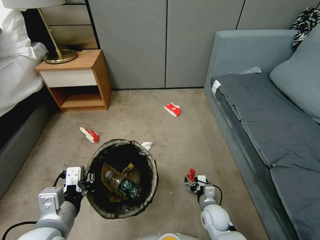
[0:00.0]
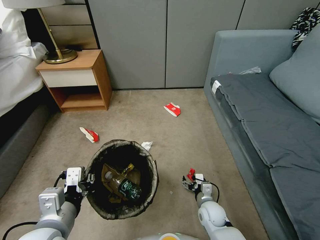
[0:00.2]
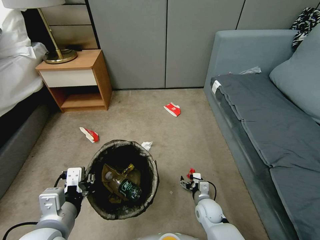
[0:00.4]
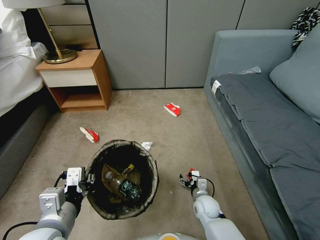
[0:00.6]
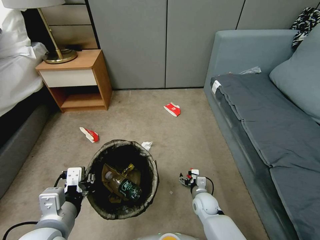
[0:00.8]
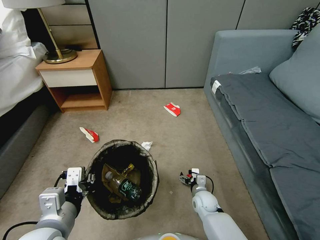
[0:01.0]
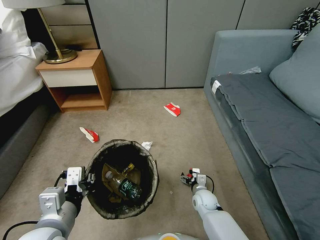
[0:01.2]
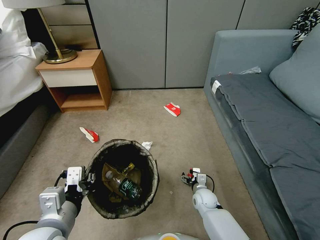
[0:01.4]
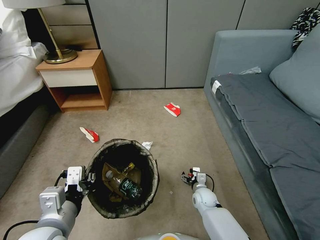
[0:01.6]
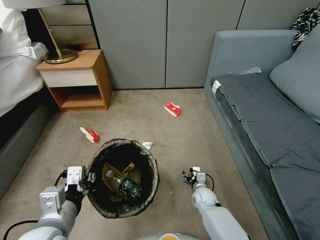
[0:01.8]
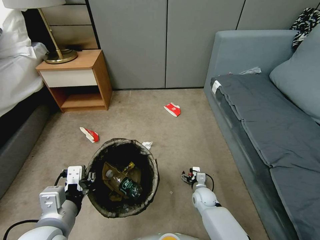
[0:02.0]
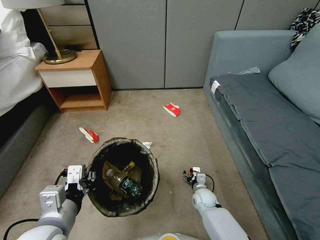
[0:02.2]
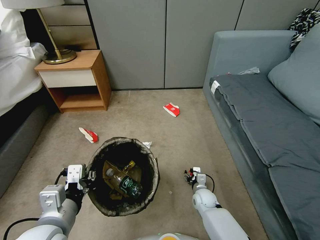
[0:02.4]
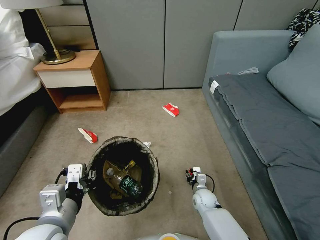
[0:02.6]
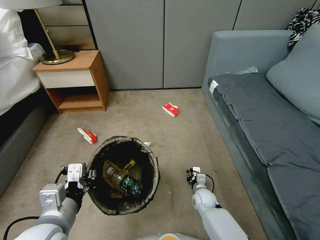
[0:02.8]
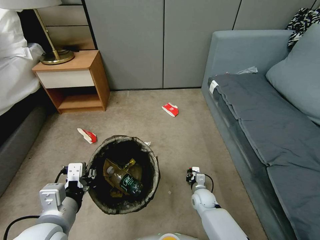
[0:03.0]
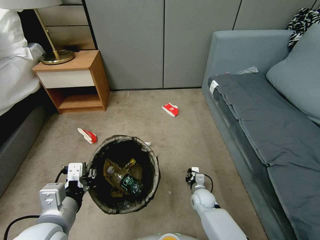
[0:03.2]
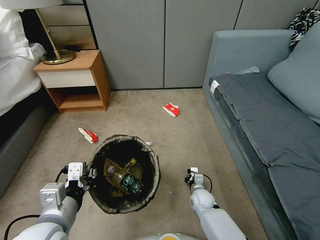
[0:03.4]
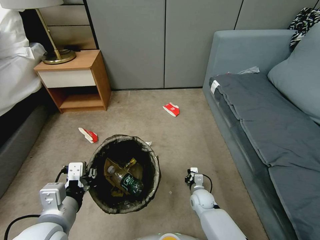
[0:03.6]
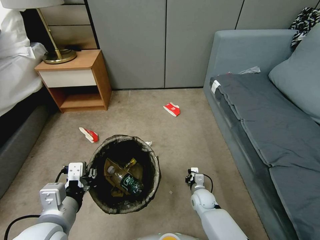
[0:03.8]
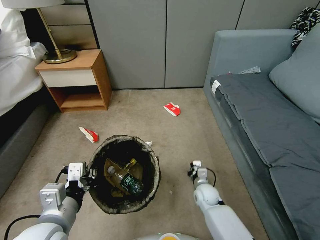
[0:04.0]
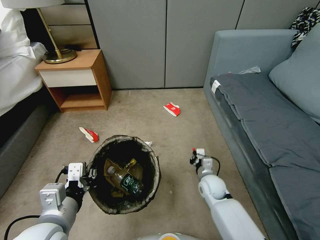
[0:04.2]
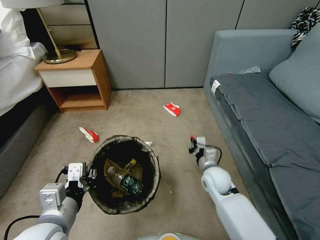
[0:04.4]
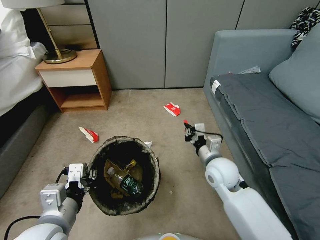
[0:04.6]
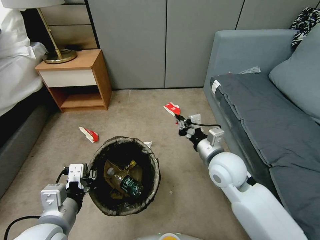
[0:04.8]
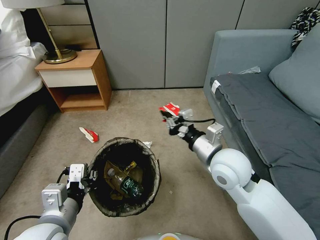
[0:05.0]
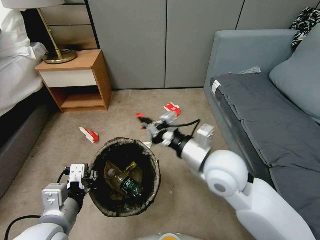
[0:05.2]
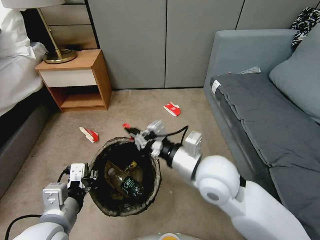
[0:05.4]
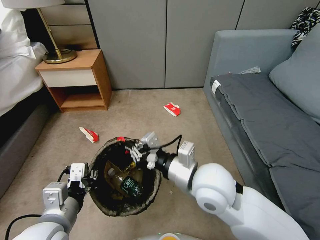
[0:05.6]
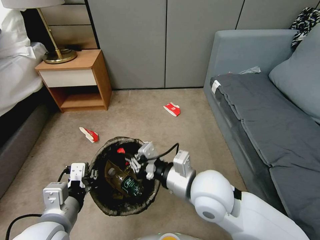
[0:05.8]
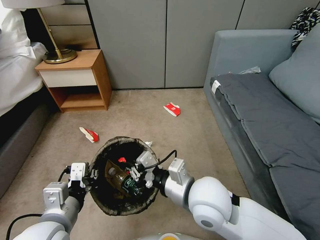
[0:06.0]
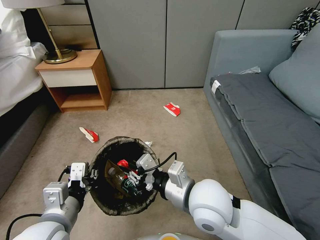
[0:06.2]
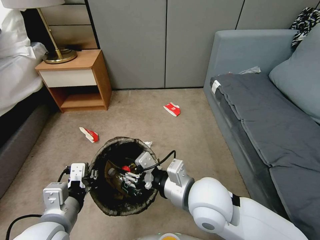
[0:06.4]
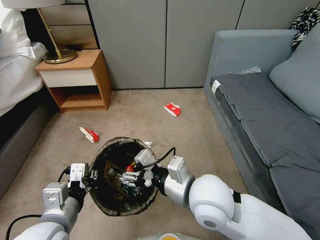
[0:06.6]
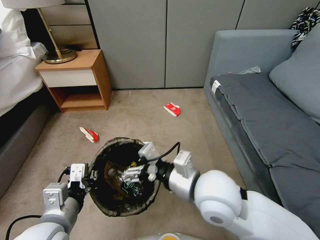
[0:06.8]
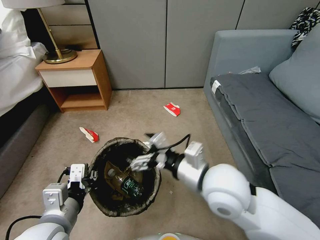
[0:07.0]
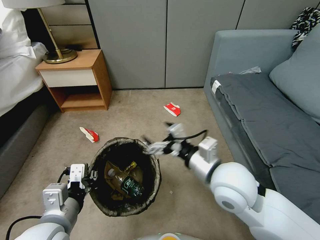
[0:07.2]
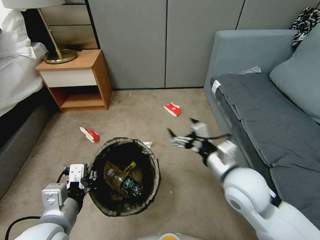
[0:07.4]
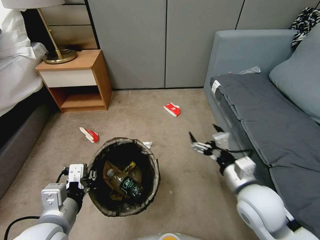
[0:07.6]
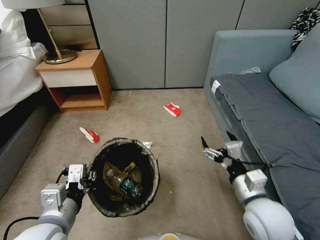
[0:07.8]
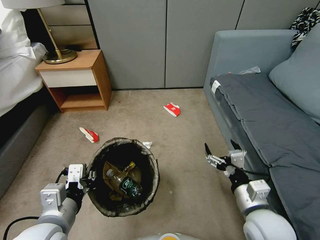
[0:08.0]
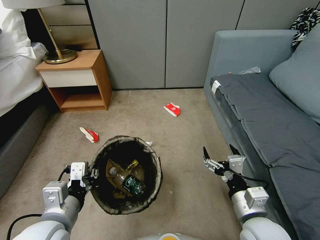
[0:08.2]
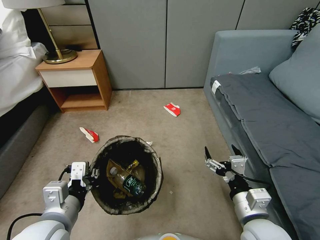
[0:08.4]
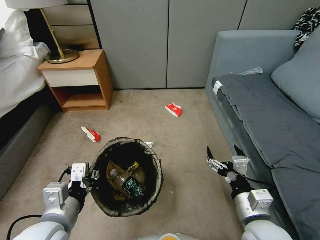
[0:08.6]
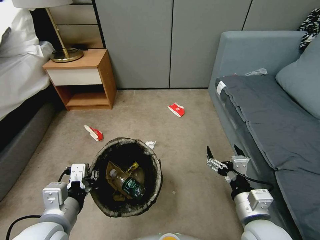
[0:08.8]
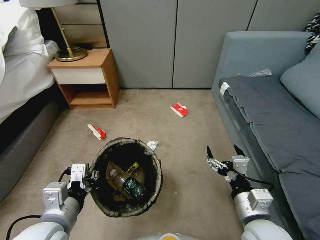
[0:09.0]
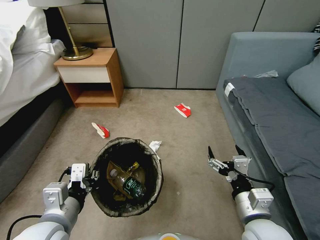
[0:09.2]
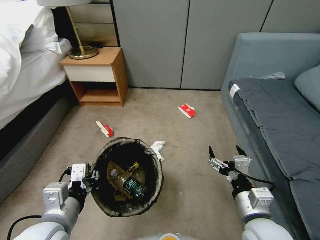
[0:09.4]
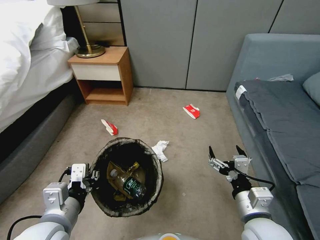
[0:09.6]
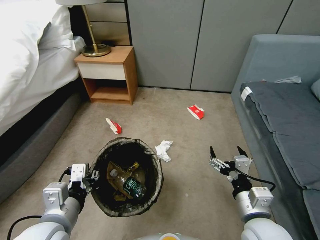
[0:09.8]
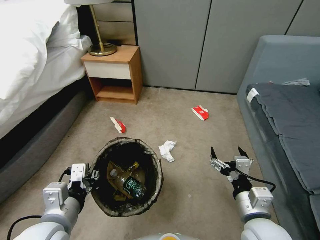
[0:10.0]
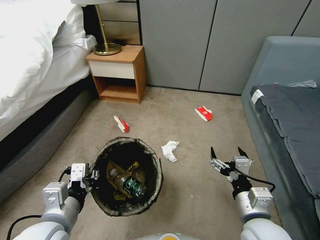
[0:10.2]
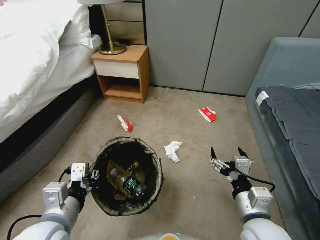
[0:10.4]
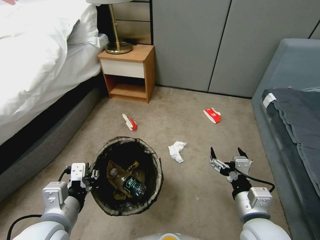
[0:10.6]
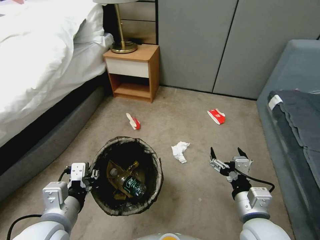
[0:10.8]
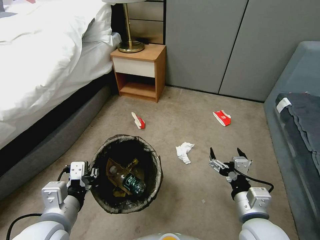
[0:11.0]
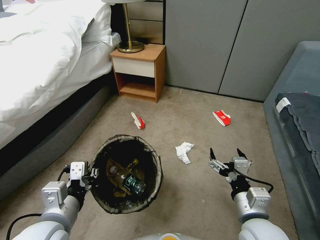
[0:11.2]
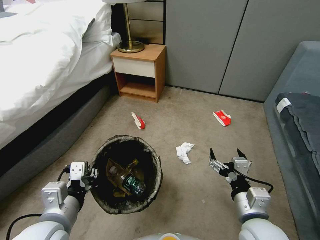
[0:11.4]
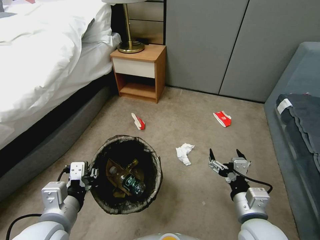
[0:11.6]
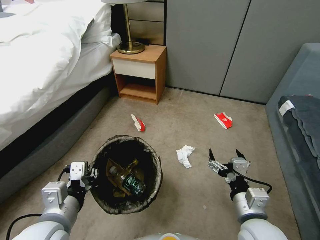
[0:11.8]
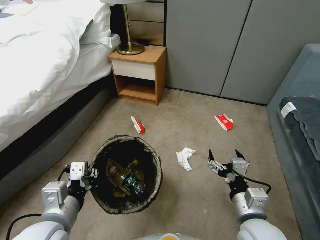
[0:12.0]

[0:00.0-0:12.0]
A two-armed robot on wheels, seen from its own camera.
Task of the whole recording: Pick up the trash bin, then pick up the garbage from the floor and place it into the trash bin.
0:00.0 to 0:01.6: The right gripper travels forward by about 5 cm.
0:01.6 to 0:03.0: The right gripper closes up.
0:03.0 to 0:04.4: The right gripper is displaced upward by about 20 cm, and closes up.
0:04.4 to 0:06.0: The right gripper heads upward, backward and to the left, covering some 20 cm.
0:06.0 to 0:07.6: The right gripper shifts roughly 15 cm to the right, and opens.
0:07.6 to 0:09.0: The right gripper heads backward, covering some 5 cm.

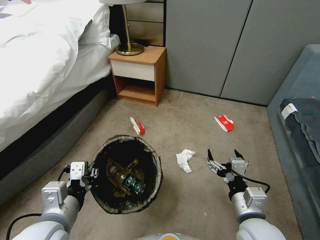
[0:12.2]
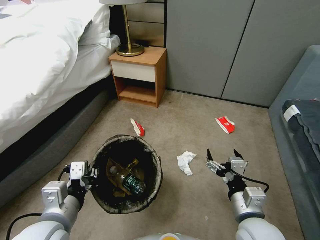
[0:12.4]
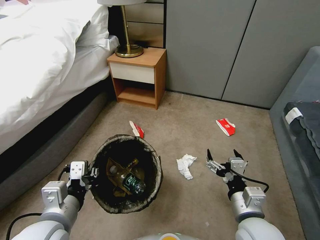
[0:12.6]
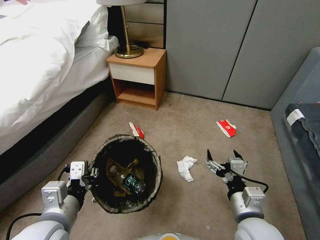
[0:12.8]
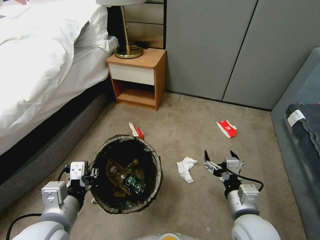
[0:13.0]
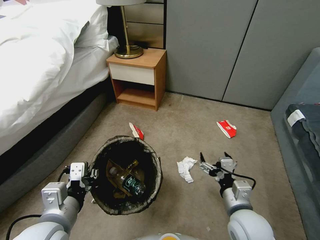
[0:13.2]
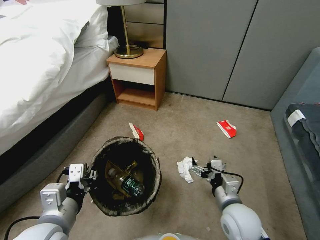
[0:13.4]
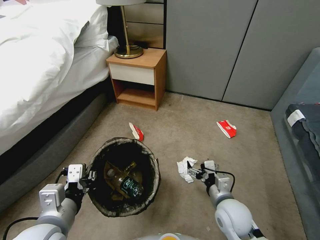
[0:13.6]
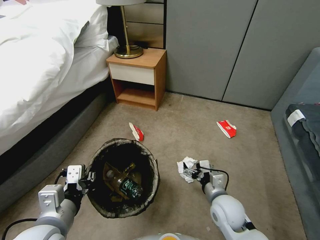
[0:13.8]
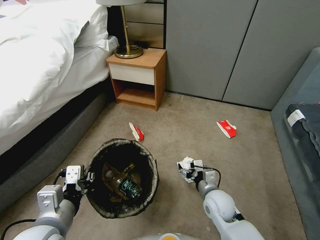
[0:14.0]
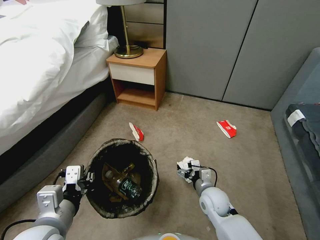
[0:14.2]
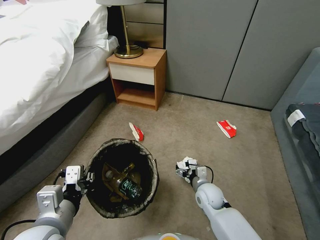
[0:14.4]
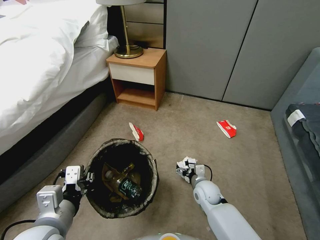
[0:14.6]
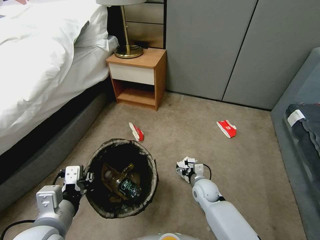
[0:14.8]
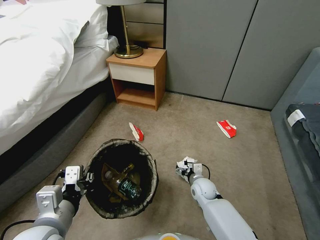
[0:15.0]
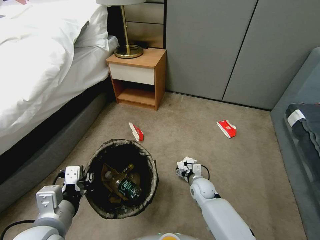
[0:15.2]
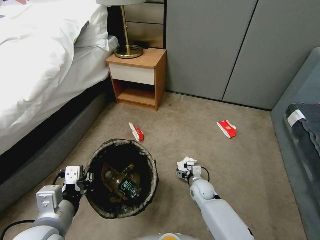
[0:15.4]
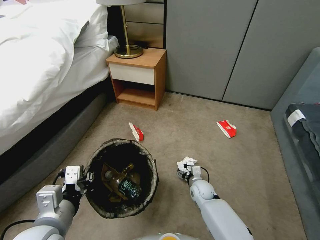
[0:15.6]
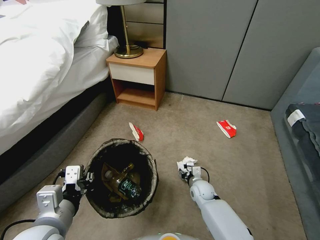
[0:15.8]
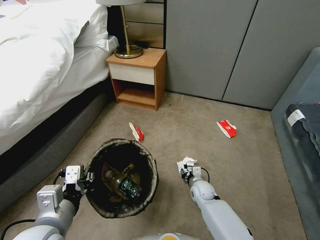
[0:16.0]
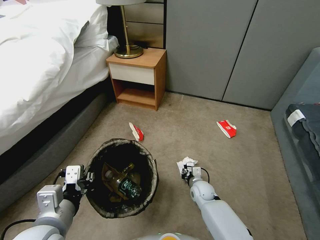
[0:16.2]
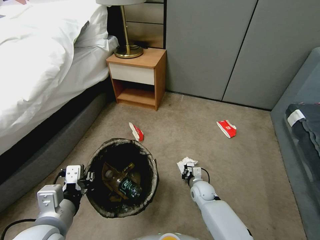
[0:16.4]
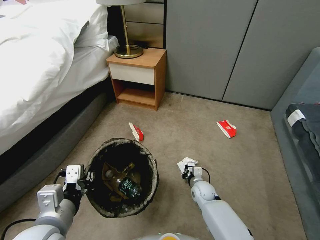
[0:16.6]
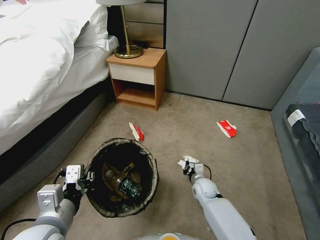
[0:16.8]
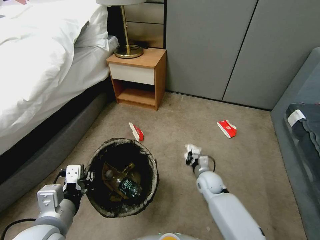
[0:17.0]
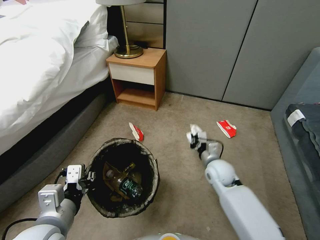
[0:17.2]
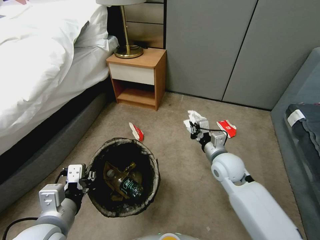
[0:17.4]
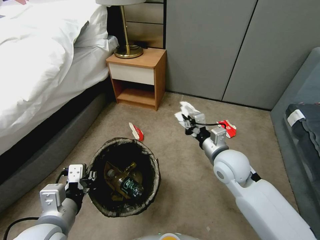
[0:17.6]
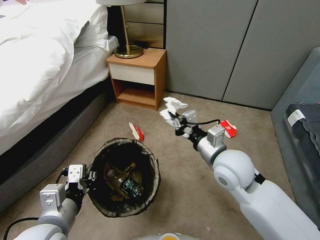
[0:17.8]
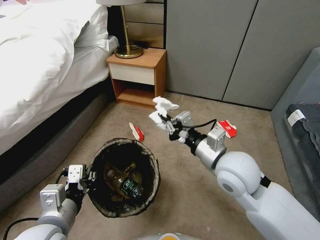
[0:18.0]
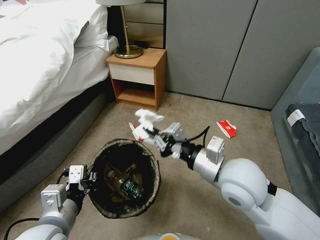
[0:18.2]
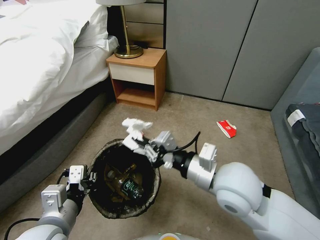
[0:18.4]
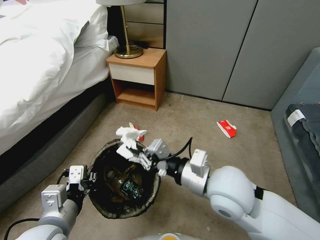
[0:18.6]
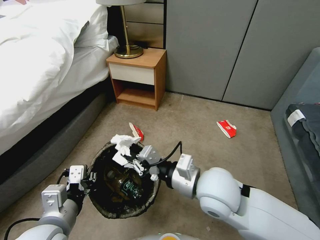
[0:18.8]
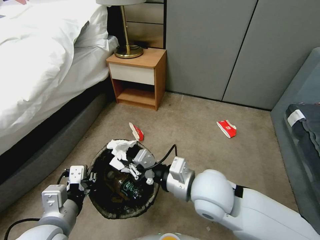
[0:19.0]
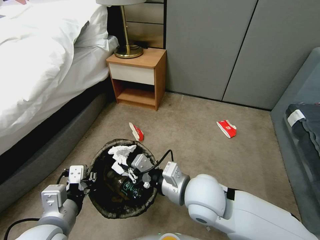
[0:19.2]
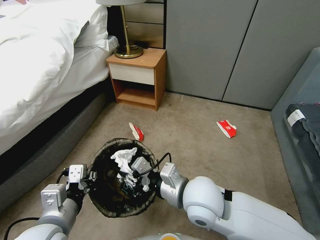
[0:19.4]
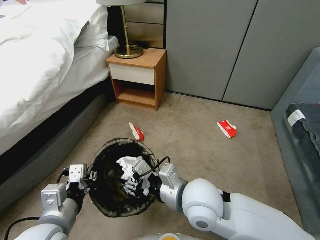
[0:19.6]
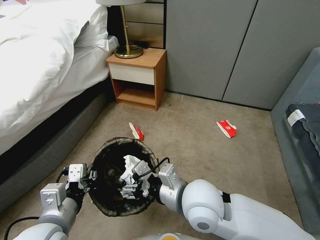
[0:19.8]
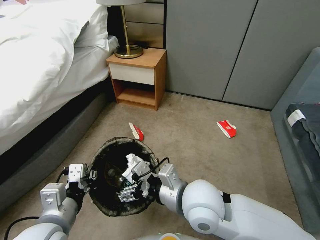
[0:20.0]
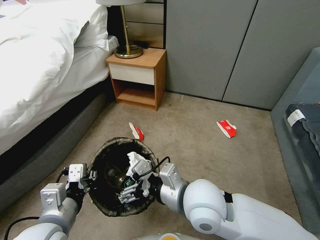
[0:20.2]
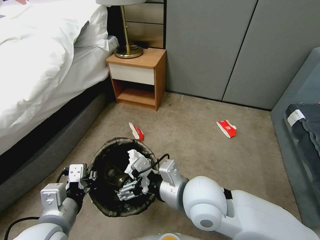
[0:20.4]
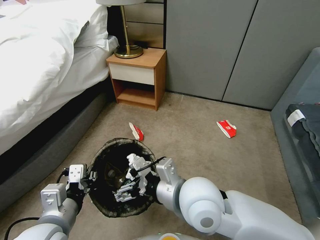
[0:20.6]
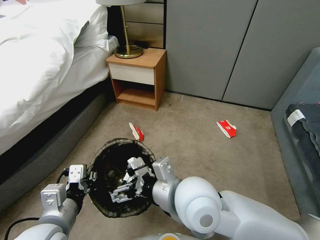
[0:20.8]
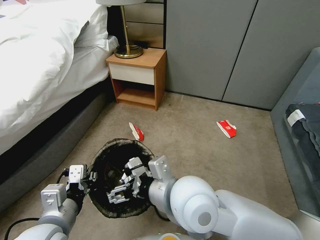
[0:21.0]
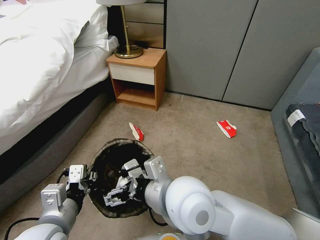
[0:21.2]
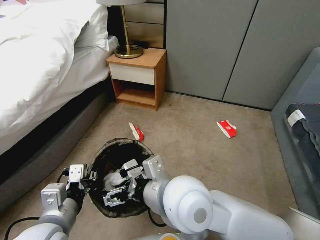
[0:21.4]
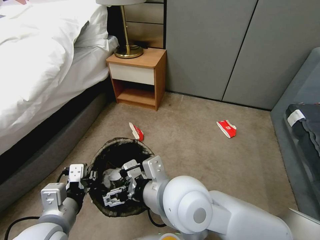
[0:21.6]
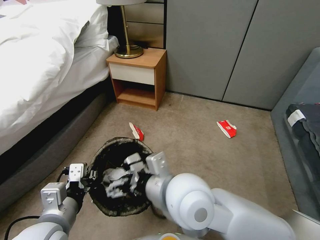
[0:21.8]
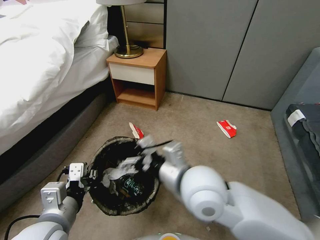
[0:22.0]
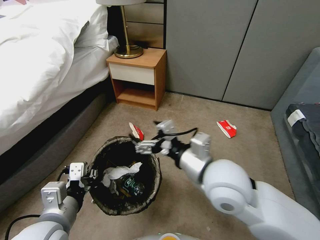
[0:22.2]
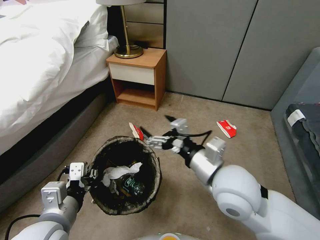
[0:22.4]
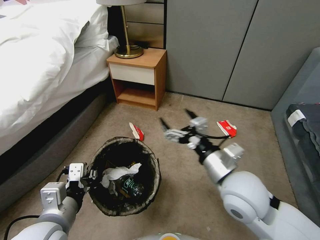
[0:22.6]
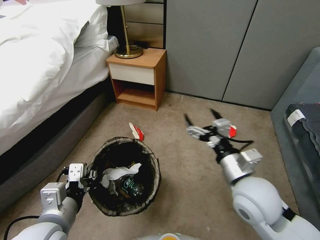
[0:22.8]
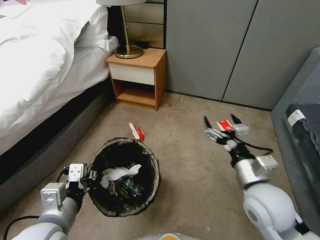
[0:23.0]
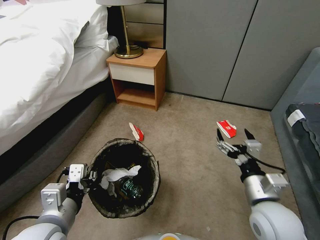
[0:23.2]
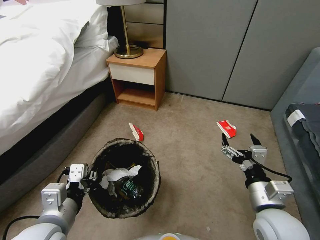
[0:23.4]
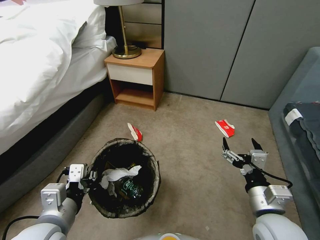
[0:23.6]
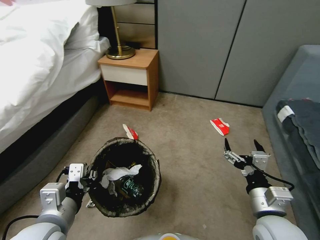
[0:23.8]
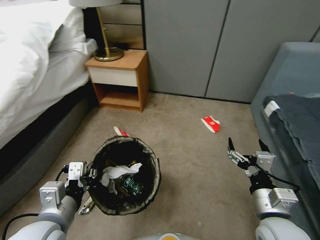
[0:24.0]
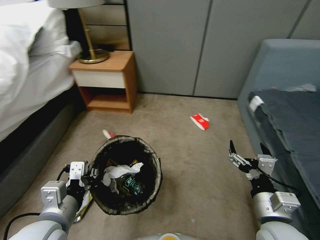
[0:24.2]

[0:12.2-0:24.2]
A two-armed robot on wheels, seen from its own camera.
Task of the whole recording: Pick up the trash bin, then pick up the garbage from the floor and place it into the trash bin.
0:12.2 to 0:13.8: The right gripper heads downward and forward, covering roughly 15 cm.
0:13.8 to 0:15.2: The right gripper shifts some 15 cm downward and forward.
0:15.2 to 0:16.6: The right gripper closes up.
0:16.6 to 0:18.2: The right gripper moves upward, some 35 cm.
0:18.2 to 0:19.8: The right gripper travels to the left and downward by about 10 cm, and opens its fingers.
0:19.8 to 0:21.2: The right gripper travels upward by about 5 cm.
0:21.2 to 0:22.6: The right gripper heads to the right, covering about 15 cm.
0:22.6 to 0:24.2: The right gripper moves to the right, backward and downward, about 15 cm.
